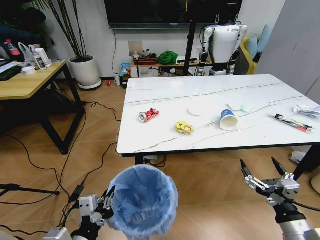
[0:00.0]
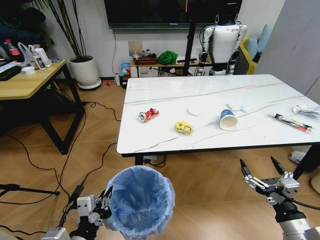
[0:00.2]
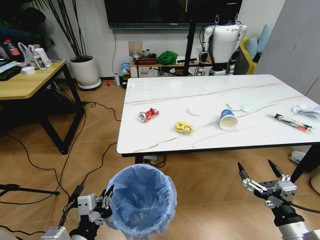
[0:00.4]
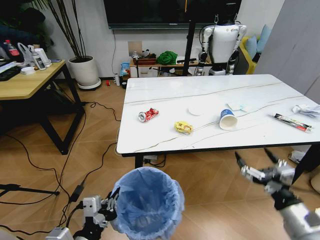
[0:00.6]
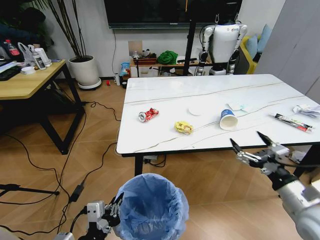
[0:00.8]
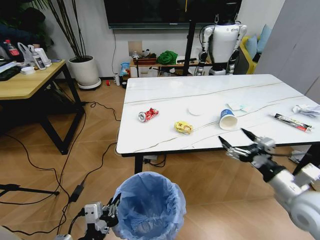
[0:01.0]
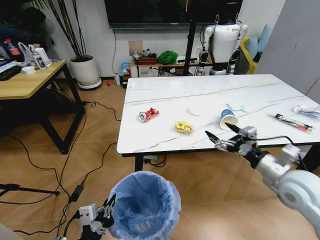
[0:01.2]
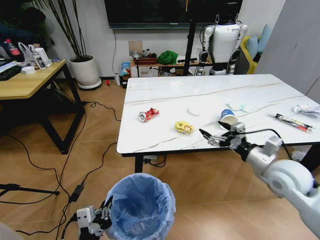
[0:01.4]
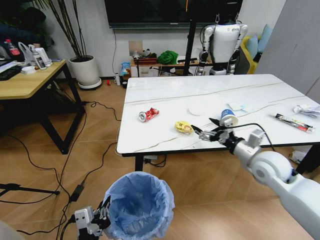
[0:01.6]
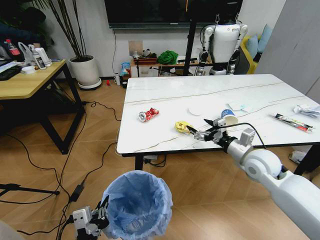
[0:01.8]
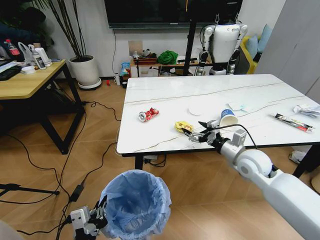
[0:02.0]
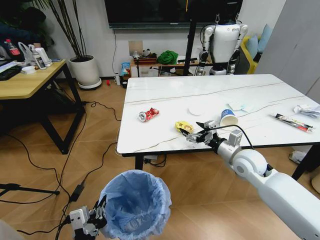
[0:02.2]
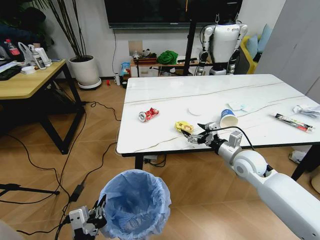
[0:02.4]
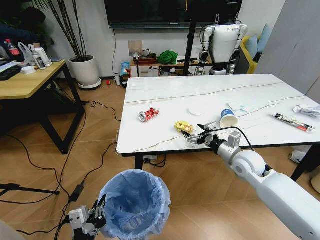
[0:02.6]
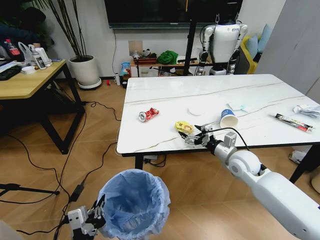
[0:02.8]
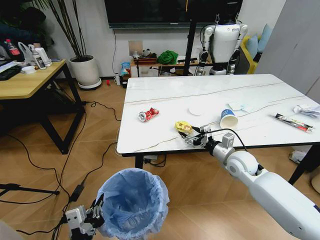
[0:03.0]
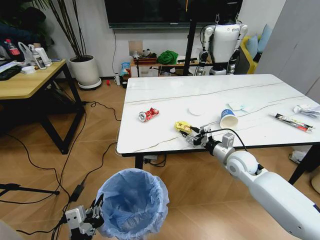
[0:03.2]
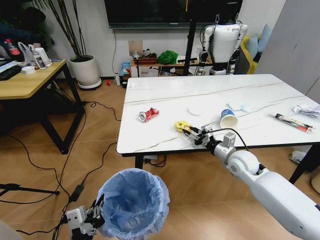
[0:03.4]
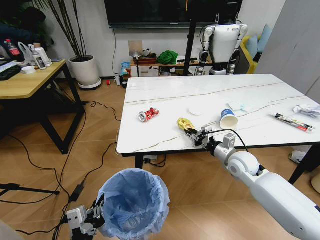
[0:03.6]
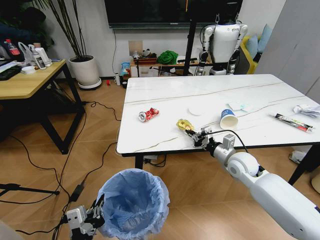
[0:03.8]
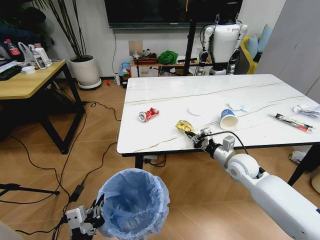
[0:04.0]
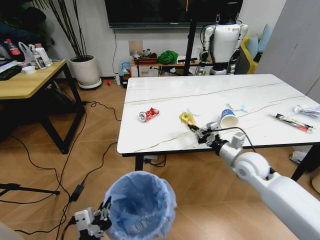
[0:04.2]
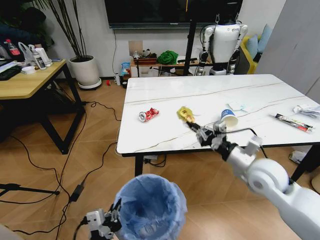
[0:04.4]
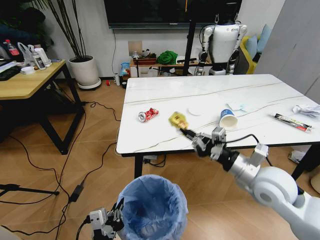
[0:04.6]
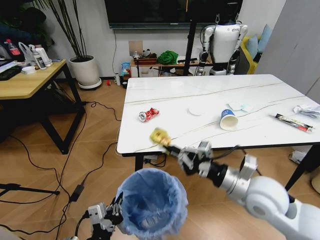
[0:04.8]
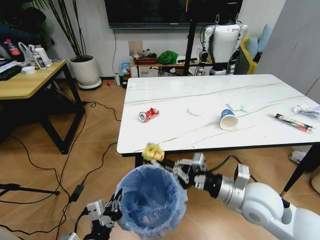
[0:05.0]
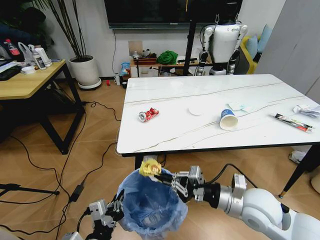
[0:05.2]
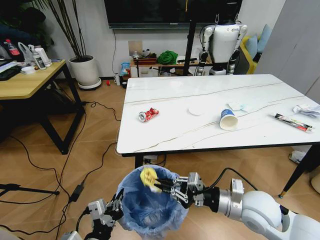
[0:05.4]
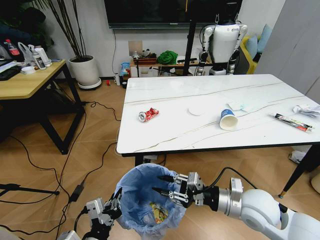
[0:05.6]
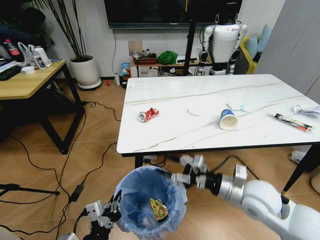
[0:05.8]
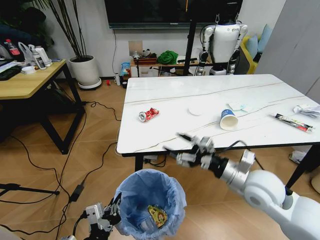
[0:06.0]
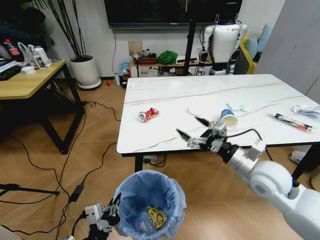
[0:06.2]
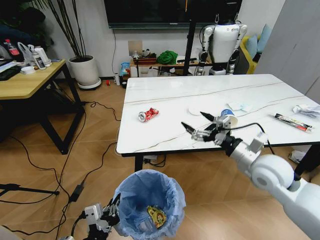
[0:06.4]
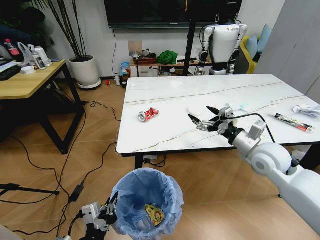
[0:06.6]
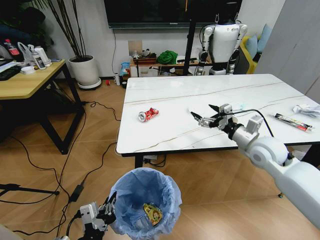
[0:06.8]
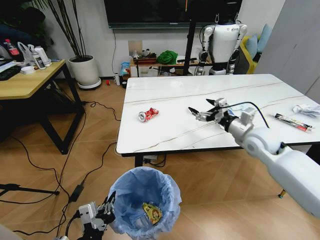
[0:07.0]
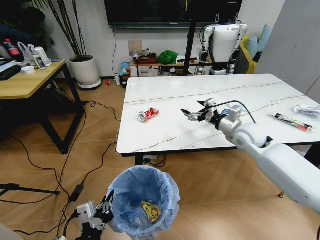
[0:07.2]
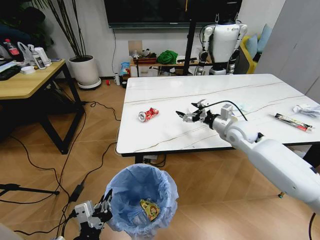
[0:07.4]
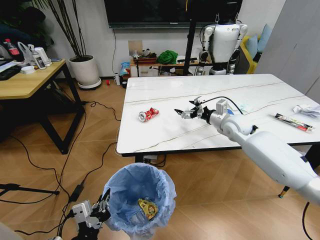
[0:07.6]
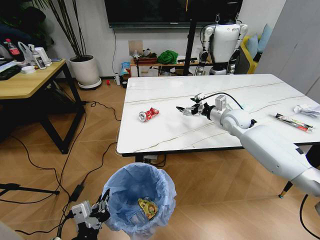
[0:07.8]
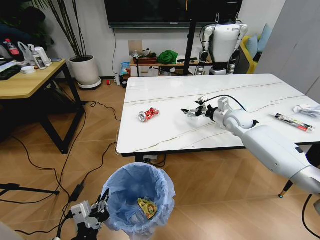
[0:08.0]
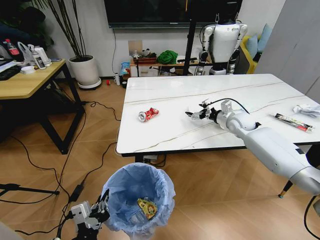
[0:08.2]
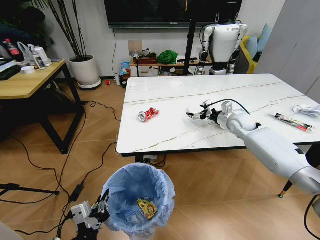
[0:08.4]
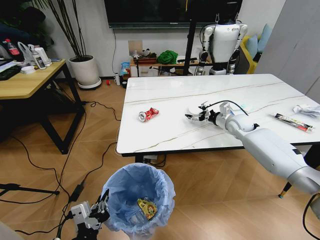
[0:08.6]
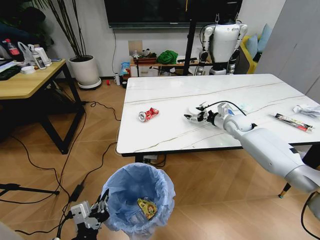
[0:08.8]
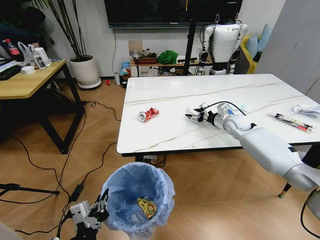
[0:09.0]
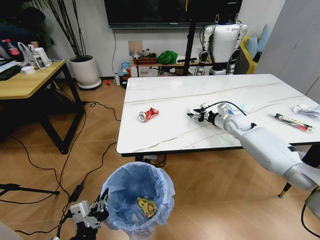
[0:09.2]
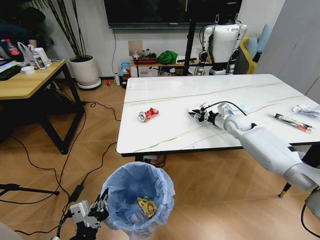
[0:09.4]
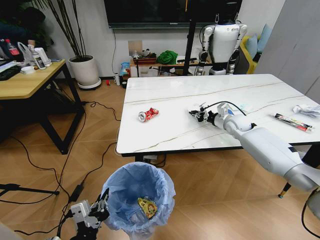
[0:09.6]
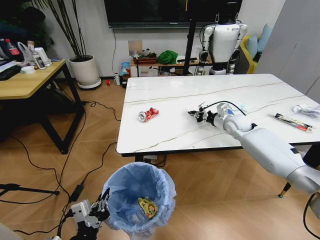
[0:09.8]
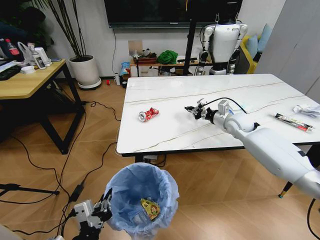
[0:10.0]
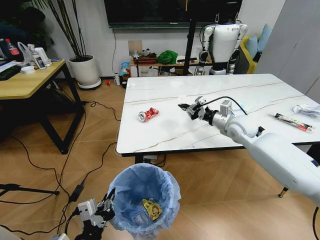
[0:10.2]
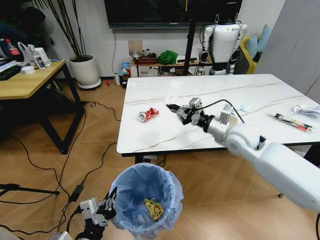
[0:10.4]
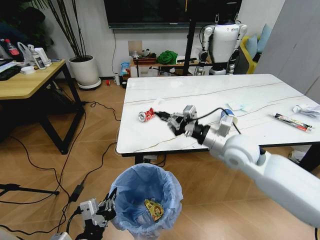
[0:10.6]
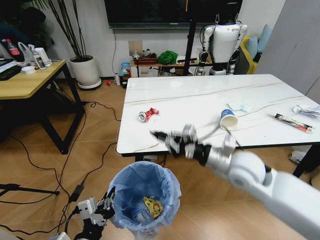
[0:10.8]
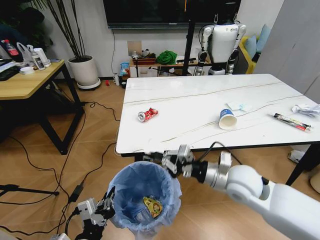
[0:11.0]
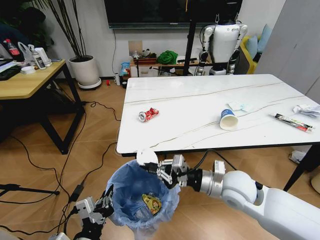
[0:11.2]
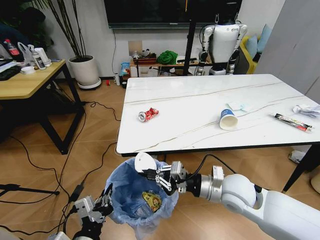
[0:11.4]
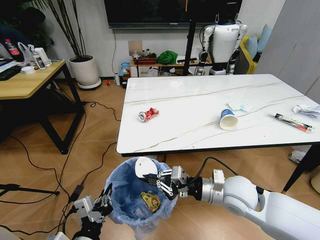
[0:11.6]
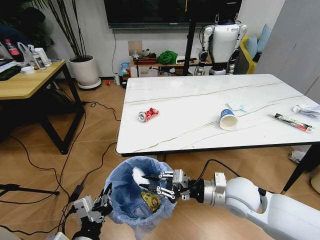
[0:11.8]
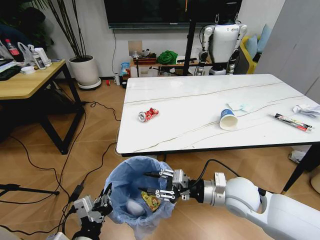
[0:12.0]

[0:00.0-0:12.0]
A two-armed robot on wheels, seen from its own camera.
Task of the whole recording: Pick up the trash bin and place the trash from the table into it.
0:00.0 to 0:01.6: The right gripper shifts about 25 cm forward.
0:01.6 to 0:03.0: The right gripper travels downward and forward by roughly 10 cm.
0:03.0 to 0:04.4: The right gripper goes about 10 cm upward and backward, and closes up.
0:04.4 to 0:06.0: The right gripper goes roughly 5 cm backward, and opens its fingers.
0:06.0 to 0:07.6: The right gripper travels forward by about 25 cm.
0:07.6 to 0:09.0: The right gripper shifts some 5 cm forward.
0:09.0 to 0:10.4: The right gripper shifts about 20 cm backward, to the left and upward, and closes its fingers.
0:10.4 to 0:12.0: The right gripper is displaced backward and downward by roughly 15 cm, and opens its fingers.

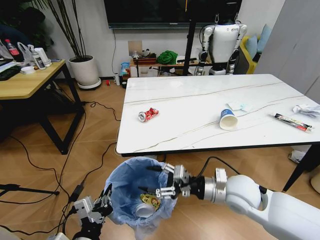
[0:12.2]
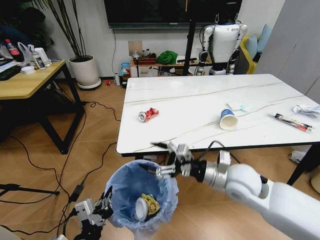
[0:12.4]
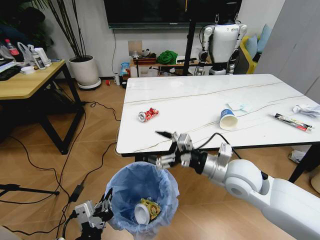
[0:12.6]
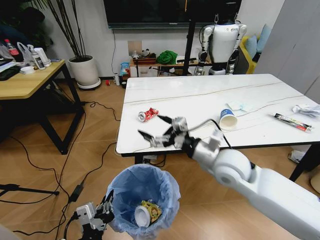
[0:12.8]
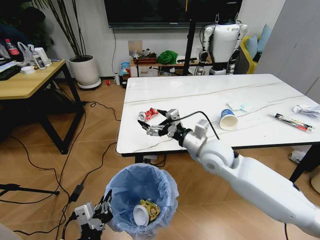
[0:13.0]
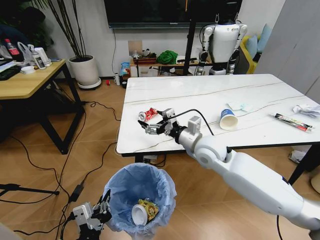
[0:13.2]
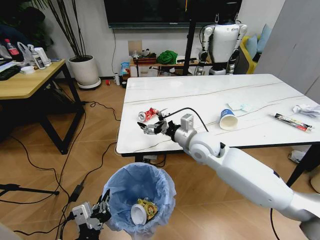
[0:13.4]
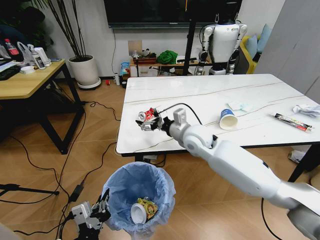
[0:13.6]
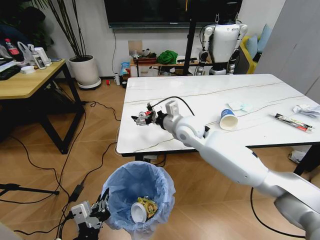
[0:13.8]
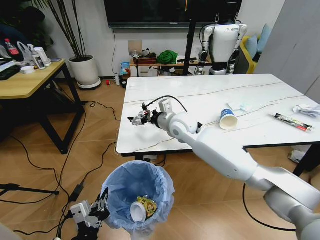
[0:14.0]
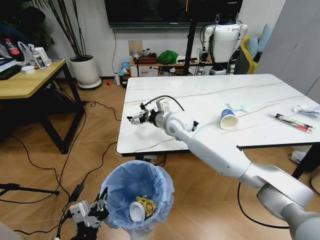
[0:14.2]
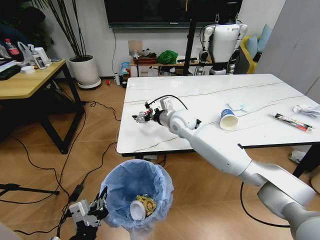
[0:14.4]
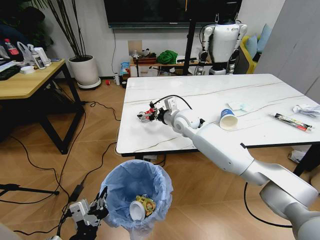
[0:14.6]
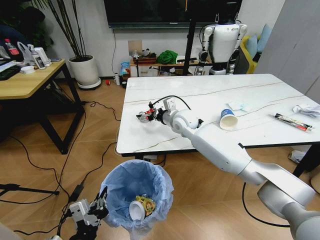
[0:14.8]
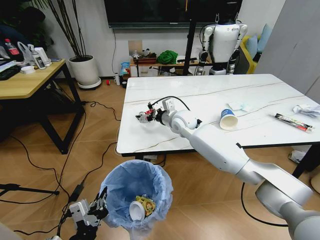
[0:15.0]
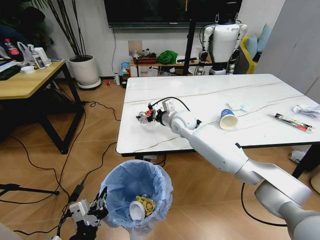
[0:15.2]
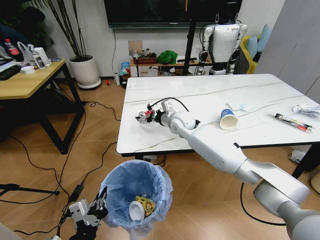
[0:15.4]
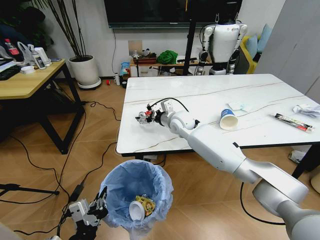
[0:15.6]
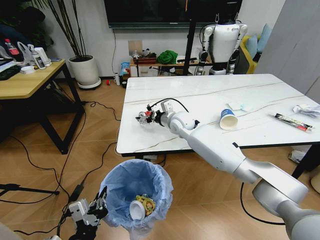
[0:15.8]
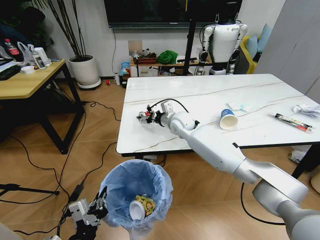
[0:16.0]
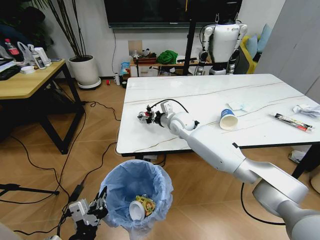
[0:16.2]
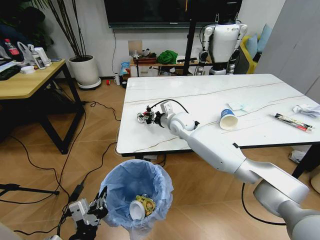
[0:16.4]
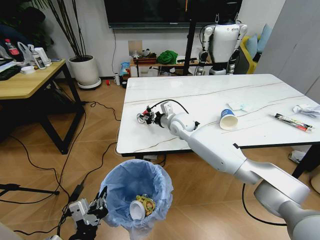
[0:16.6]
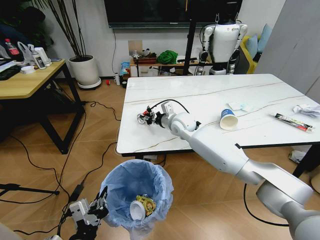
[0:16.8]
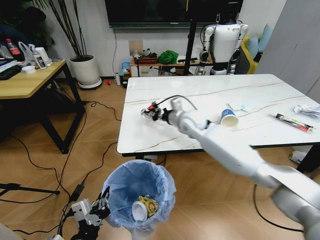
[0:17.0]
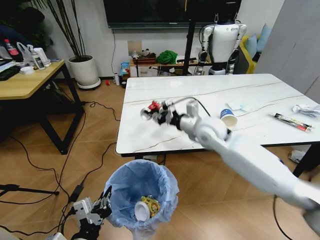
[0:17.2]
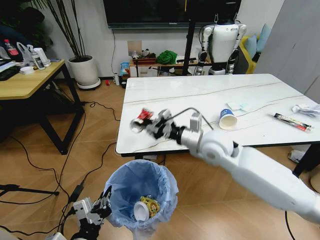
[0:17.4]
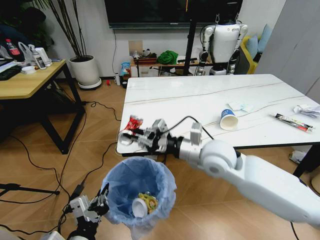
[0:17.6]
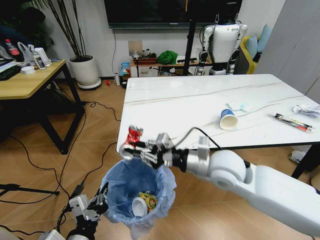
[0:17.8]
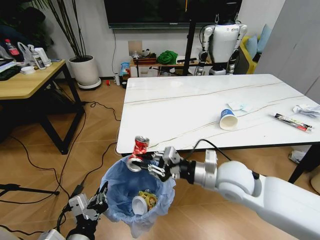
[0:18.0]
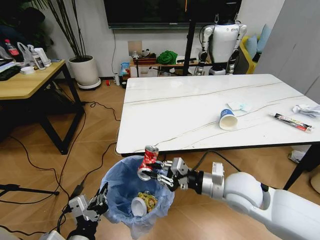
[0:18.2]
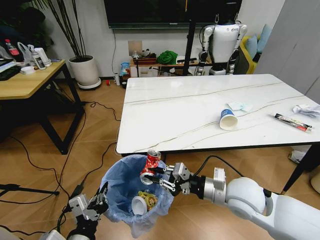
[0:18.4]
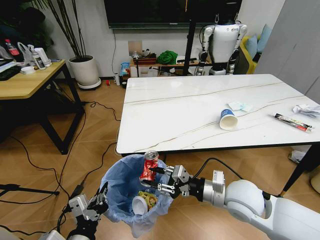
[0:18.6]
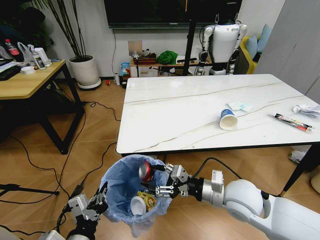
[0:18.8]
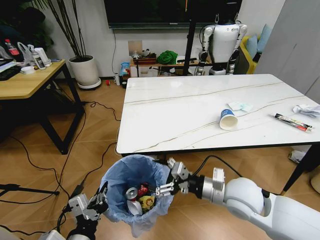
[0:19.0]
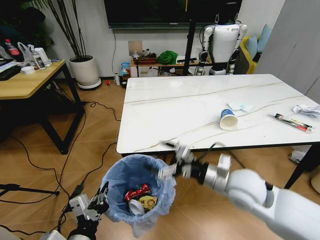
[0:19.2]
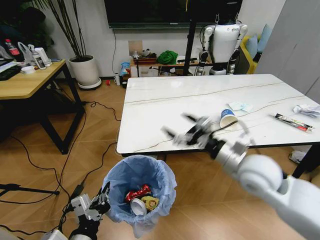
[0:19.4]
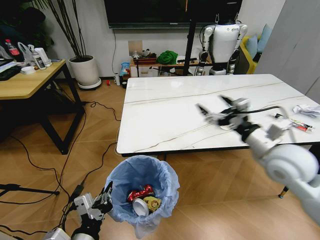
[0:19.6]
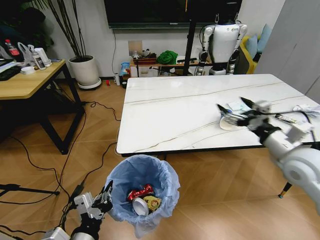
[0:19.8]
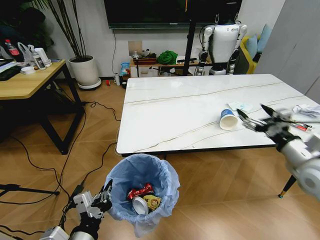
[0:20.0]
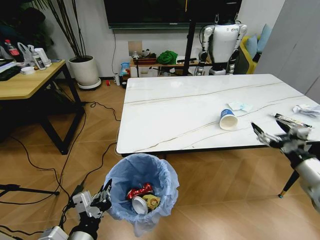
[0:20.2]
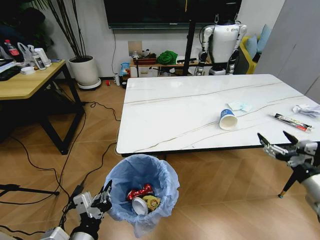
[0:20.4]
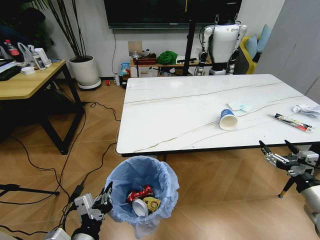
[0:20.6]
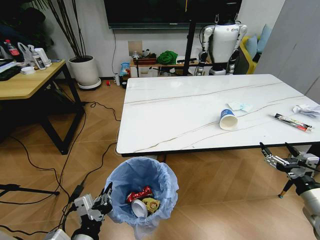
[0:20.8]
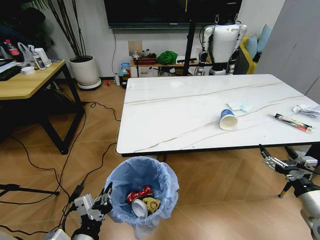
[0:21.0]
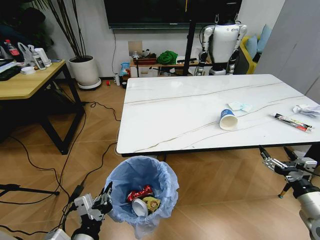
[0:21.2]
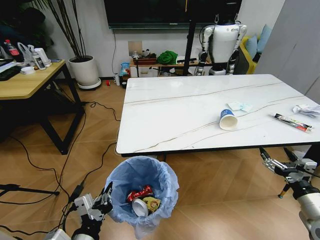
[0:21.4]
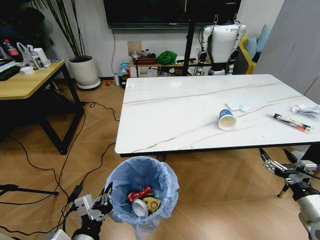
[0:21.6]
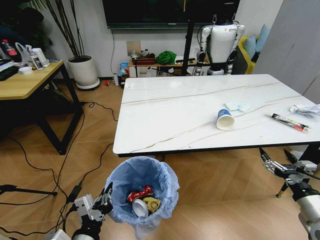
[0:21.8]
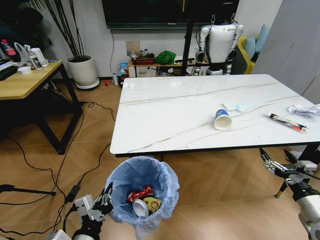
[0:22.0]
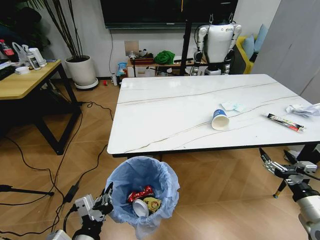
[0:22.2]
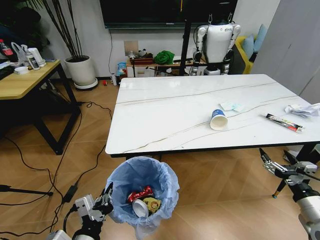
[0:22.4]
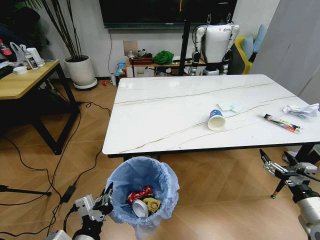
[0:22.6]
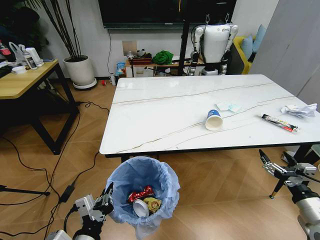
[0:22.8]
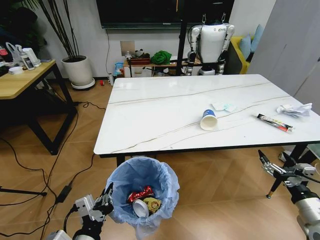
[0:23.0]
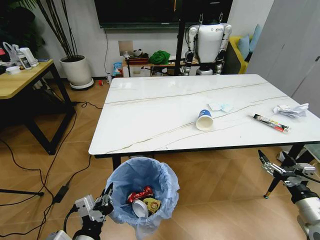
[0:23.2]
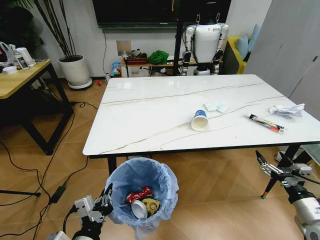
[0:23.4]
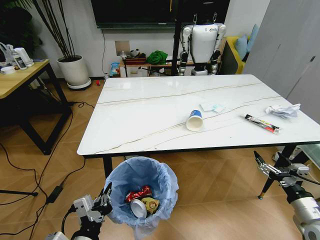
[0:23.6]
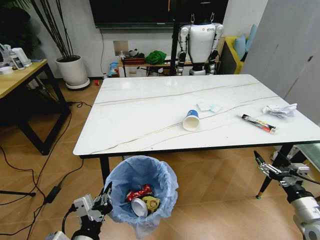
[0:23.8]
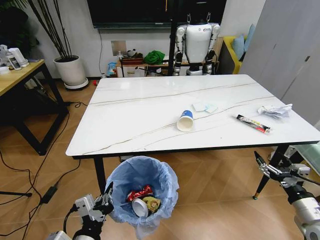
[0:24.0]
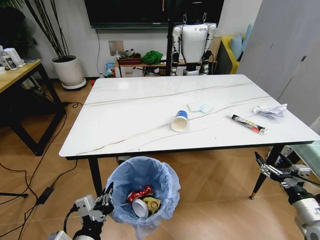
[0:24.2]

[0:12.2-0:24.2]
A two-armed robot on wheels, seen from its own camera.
Task of the whole recording: Pick up the trash bin and place the trash from the table into it.
0:12.2 to 0:13.8: The right gripper heads forward and to the left, covering approximately 20 cm.
0:13.8 to 0:15.2: The right gripper heads forward, covering roughly 10 cm.
0:15.2 to 0:16.6: The right gripper closes its fingers.
0:16.6 to 0:18.2: The right gripper moves backward and to the right, roughly 30 cm.
0:18.2 to 0:19.8: The right gripper shifts about 15 cm to the right and upward, and opens up.
0:19.8 to 0:21.2: The right gripper travels downward, backward and to the right by about 20 cm.
